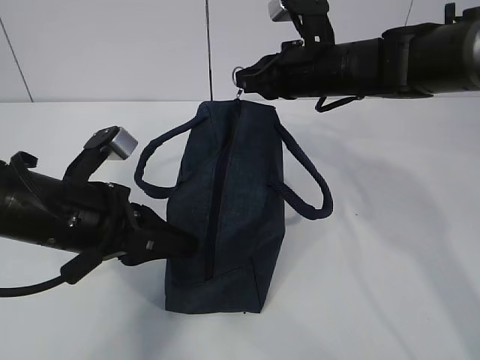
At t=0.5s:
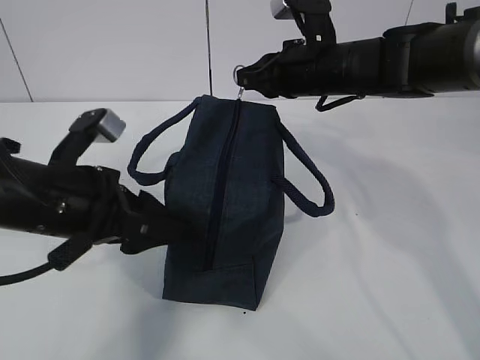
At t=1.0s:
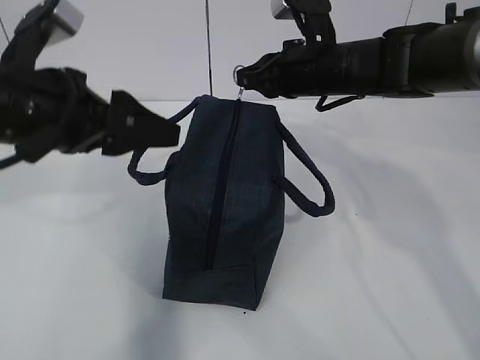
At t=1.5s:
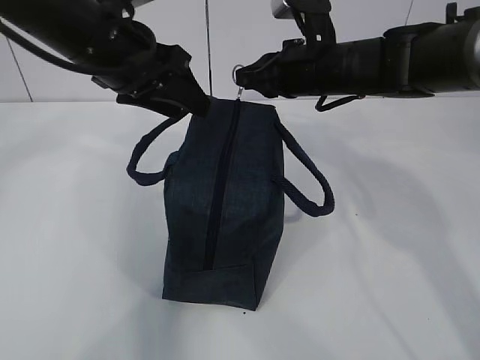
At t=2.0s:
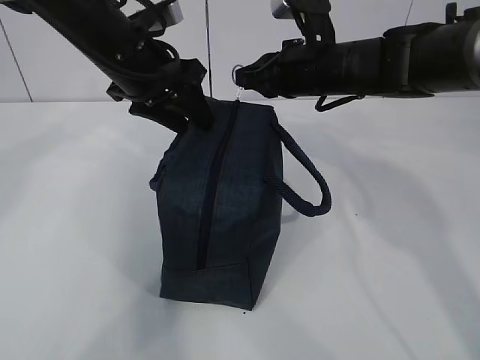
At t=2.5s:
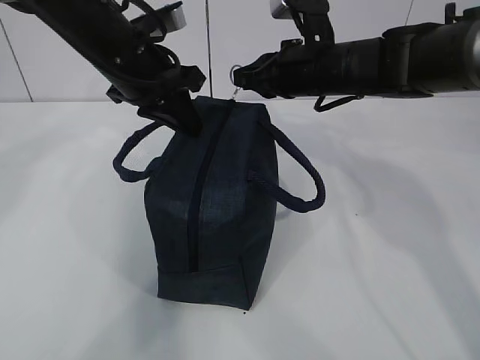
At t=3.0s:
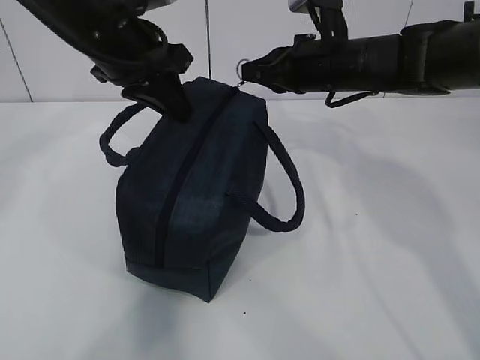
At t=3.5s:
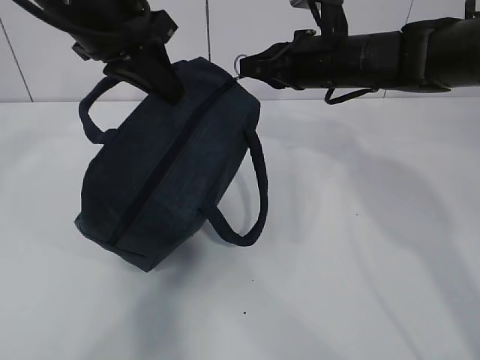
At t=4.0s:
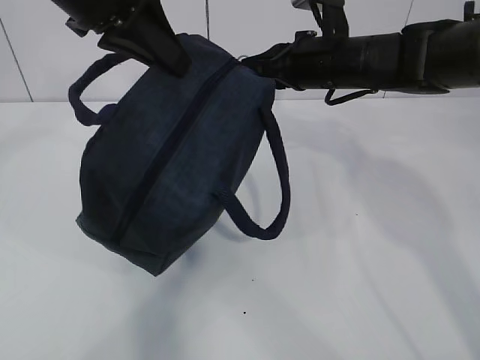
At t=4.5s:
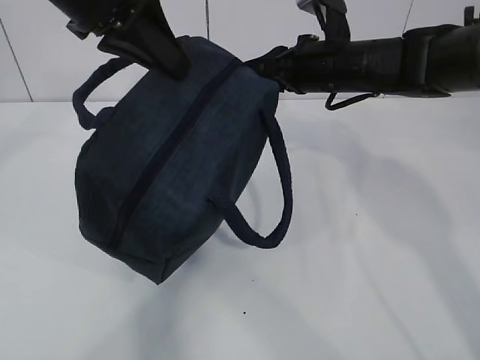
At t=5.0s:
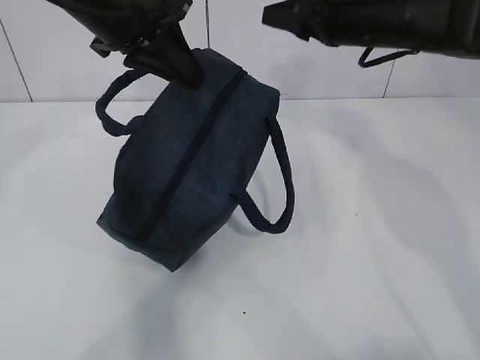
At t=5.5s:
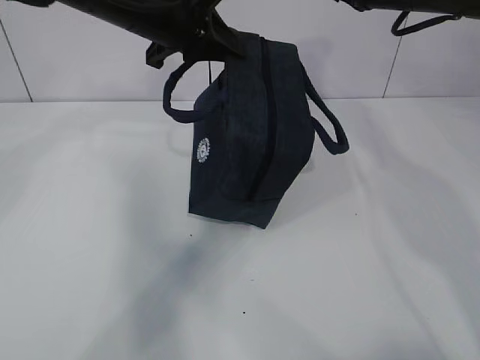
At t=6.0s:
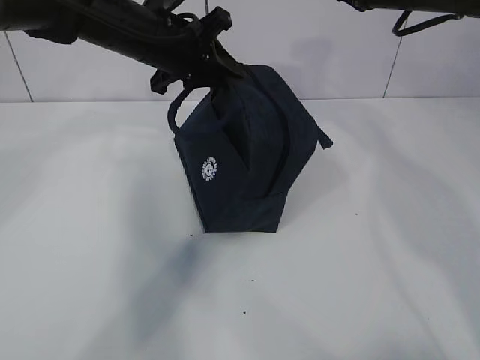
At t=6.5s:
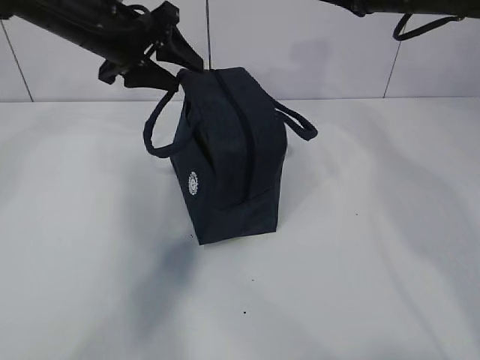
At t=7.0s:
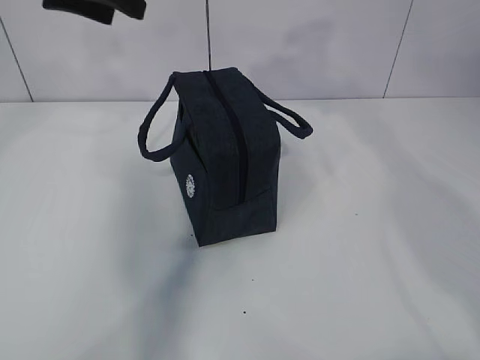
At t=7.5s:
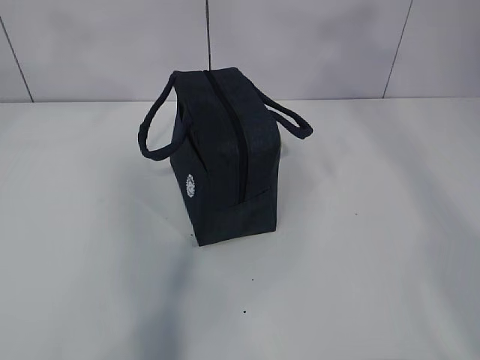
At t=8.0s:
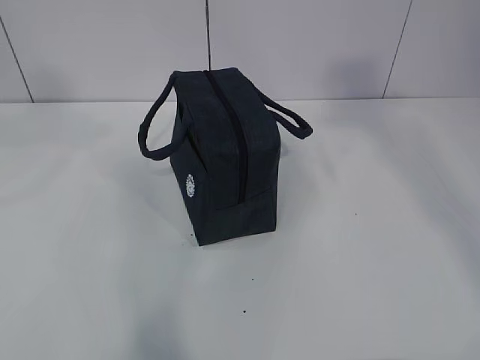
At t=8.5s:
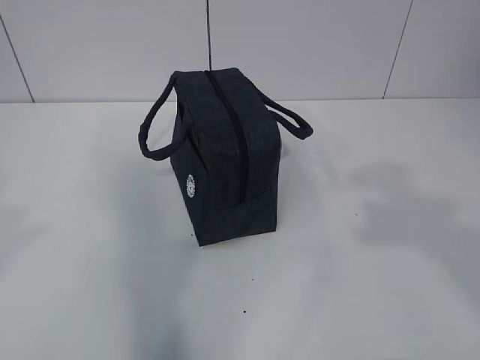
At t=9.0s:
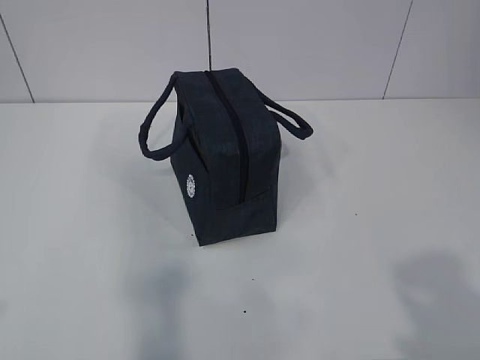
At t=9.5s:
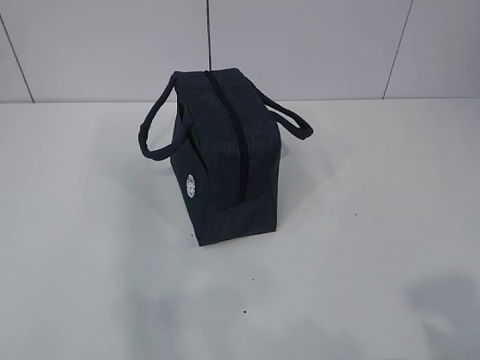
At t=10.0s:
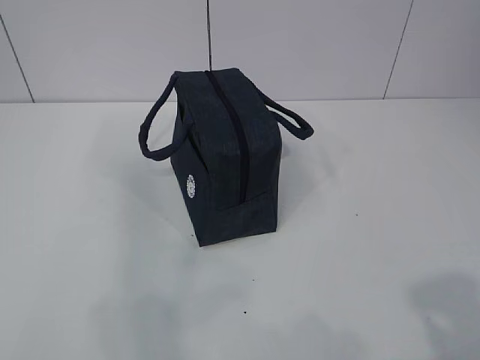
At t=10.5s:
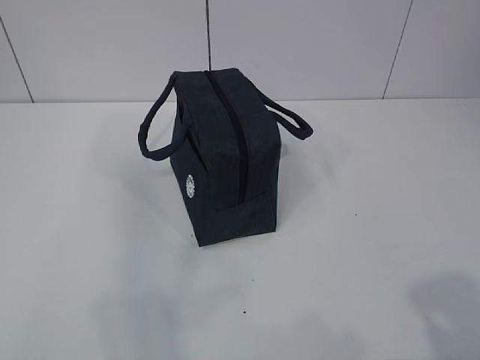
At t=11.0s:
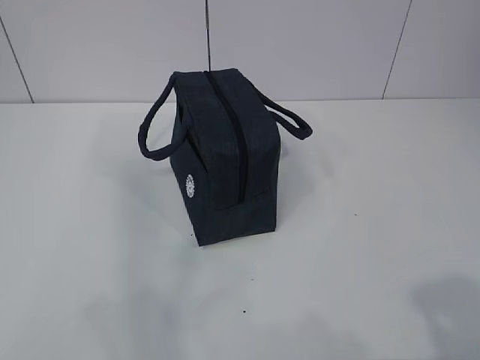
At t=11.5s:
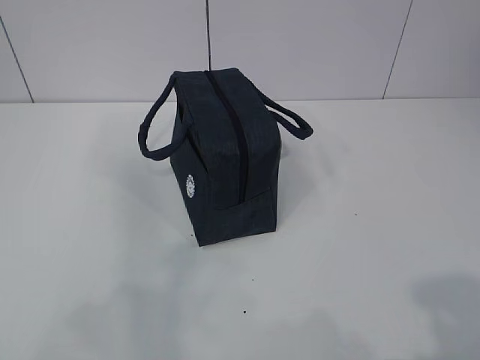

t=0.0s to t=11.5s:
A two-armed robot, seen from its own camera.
t=0.0s to t=2.0s: The left gripper is displaced forward and upward by roughly 15 cm, and opens.
t=2.0s to t=4.0s: The left gripper heads upward and backward, covering approximately 10 cm, and closes its fingers.
t=4.0s to t=6.0s: The left gripper is displaced downward and forward by about 15 cm; the right gripper moves upward and to the right, roughly 10 cm, and opens.
t=6.0s to t=7.5s: The right gripper heads upward and backward, covering roughly 25 cm. The left gripper travels upward, backward and to the left by roughly 25 cm, and opens.
t=7.5s to t=9.5s: The left gripper heads backward, covering some 35 cm, while the right gripper travels backward and downward by approximately 35 cm.
